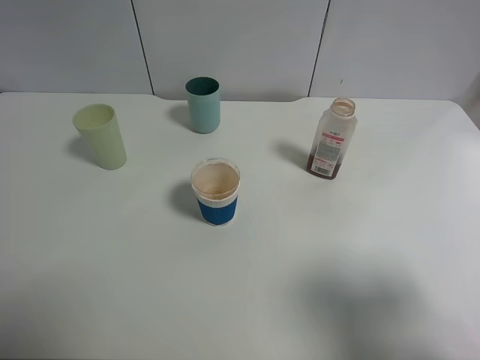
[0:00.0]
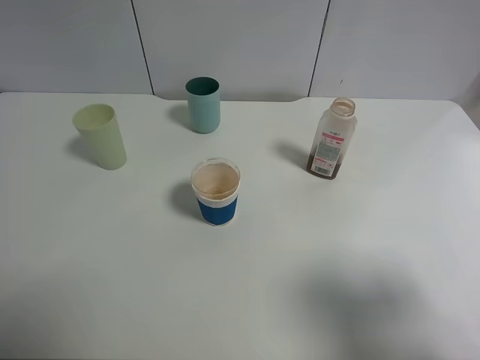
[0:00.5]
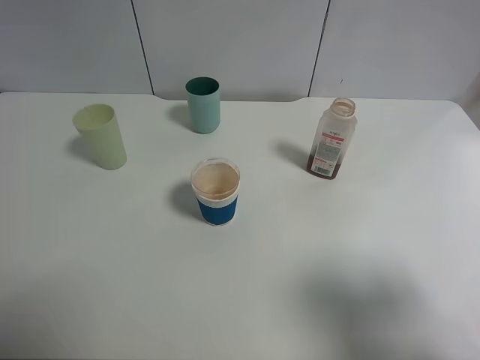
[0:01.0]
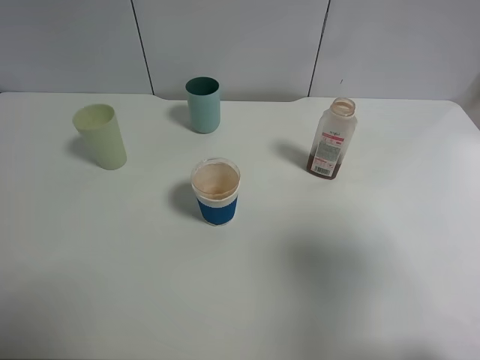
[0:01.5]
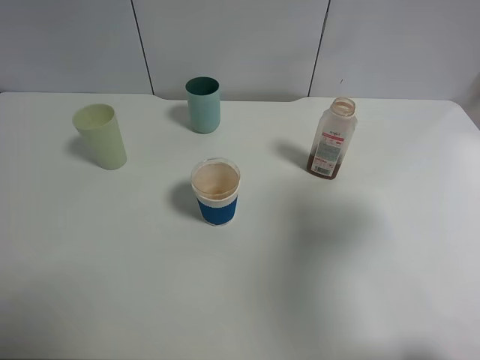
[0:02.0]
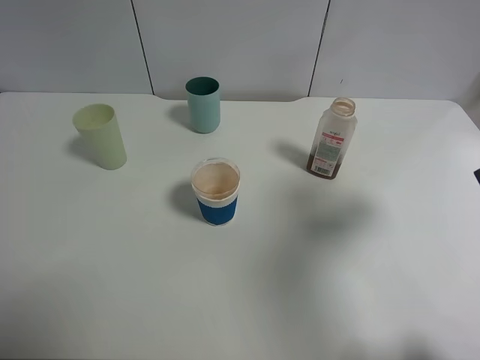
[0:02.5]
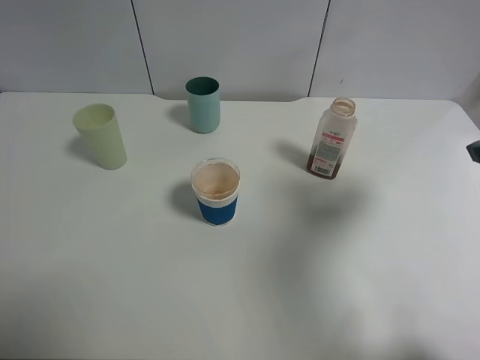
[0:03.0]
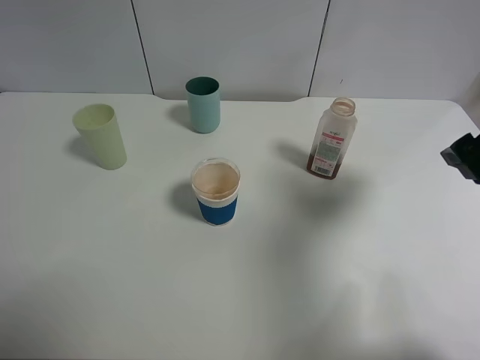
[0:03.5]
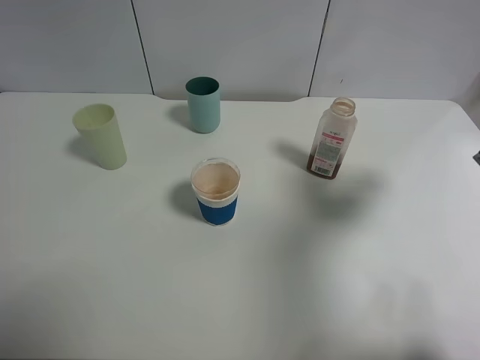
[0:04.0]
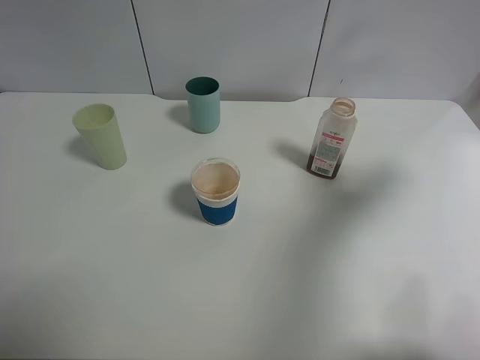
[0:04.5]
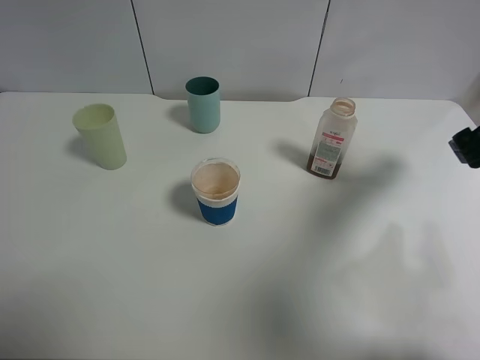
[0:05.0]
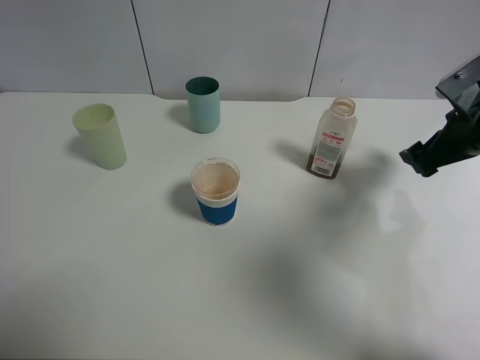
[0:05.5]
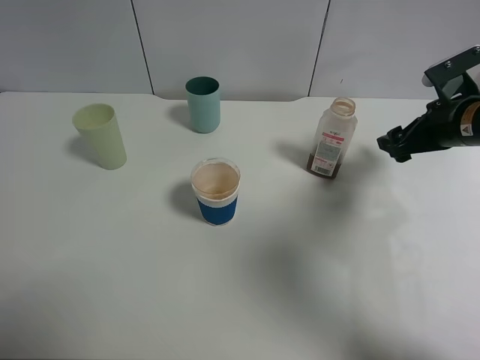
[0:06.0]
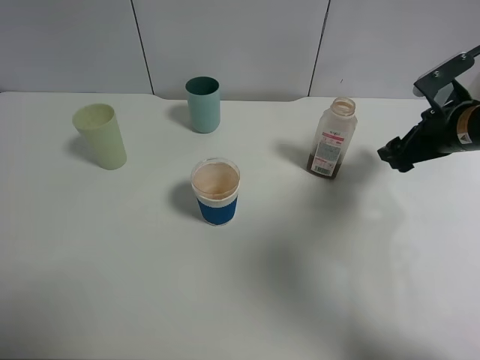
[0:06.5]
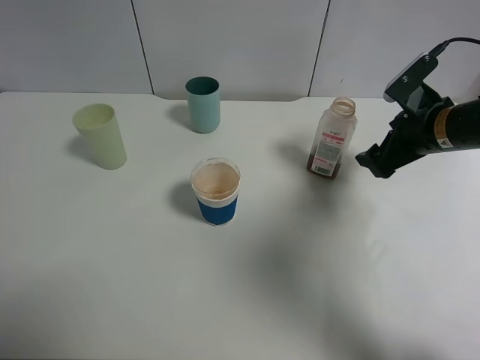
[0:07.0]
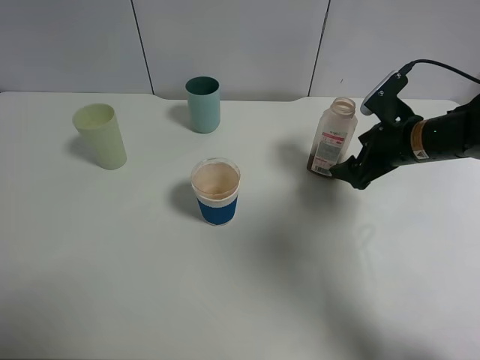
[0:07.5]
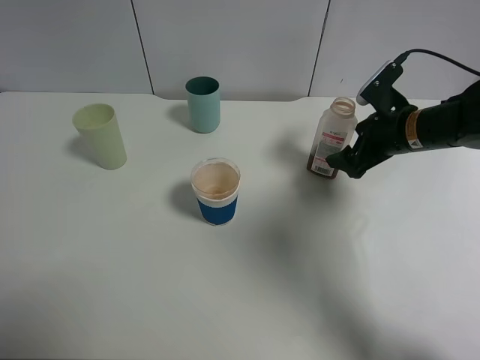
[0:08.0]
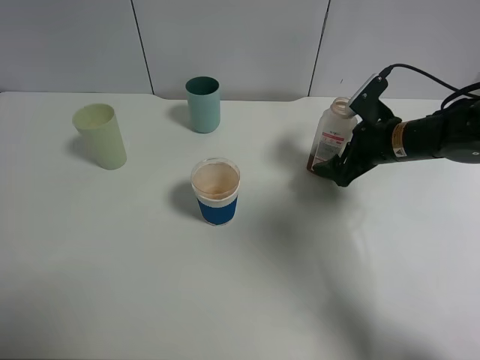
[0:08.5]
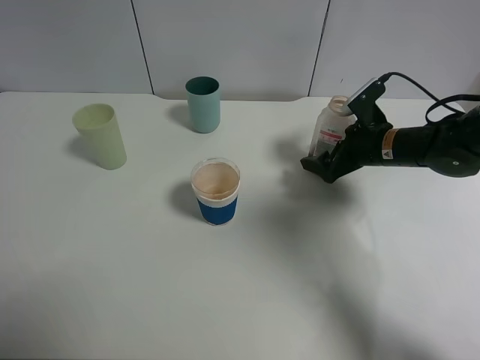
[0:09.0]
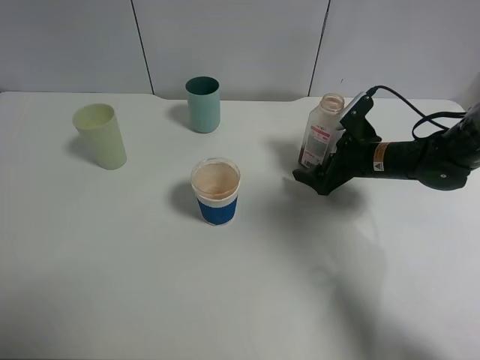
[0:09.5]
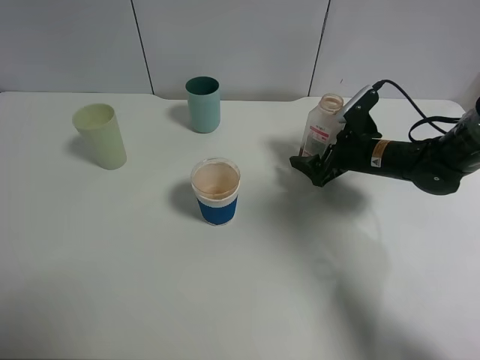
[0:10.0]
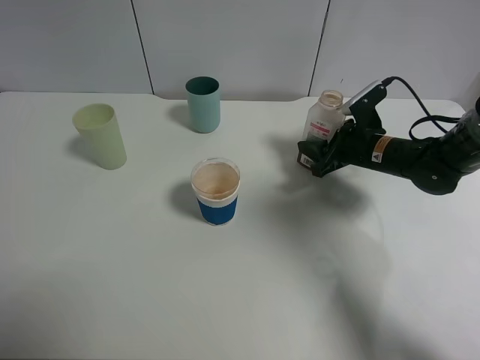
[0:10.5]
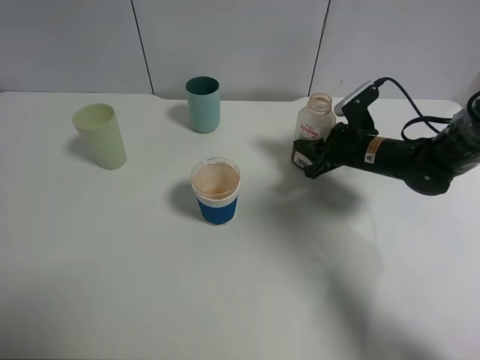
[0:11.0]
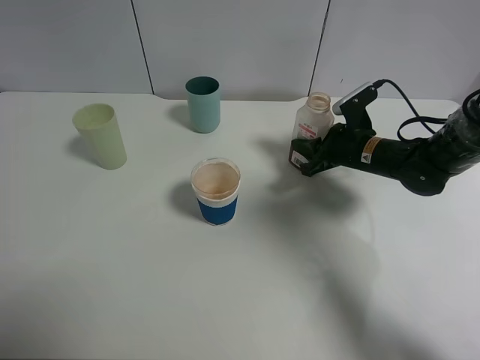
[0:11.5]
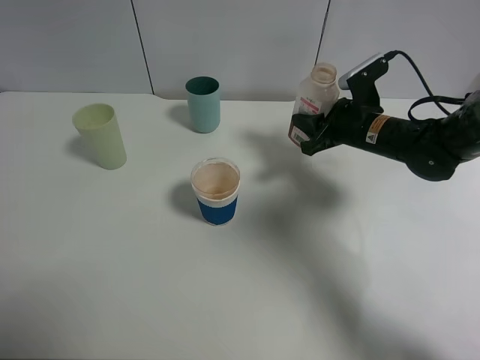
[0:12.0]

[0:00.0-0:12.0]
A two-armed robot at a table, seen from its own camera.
Task of the whole recording: use a clamp to hold the bottle of the drink, pour the beverage into a random cup, then clamp the cup containing the drink and pour the drink into another random cup.
Step, 0:00.0 to 0:10.5: Pick up the drink bottle with right gripper.
0:00.0 to 0:02.0: The right gripper travels forward by some 10 cm.
0:02.0 to 0:04.0: The right gripper heads forward, covering approximately 5 cm.
0:04.0 to 0:06.0: The right gripper heads forward and downward, covering roughly 15 cm.
0:06.0 to 0:08.0: The right gripper goes roughly 5 cm to the left.
0:08.0 to 0:10.0: The right gripper heads downward, covering roughly 5 cm.
0:10.0 to 0:12.0: The right gripper moves approximately 5 cm, and closes.

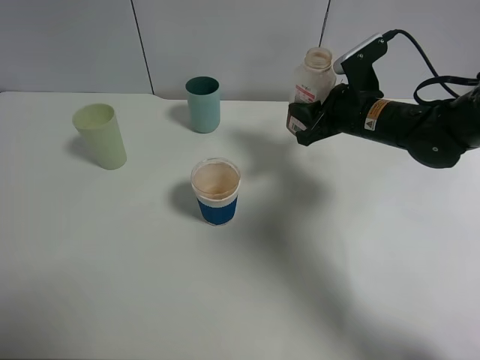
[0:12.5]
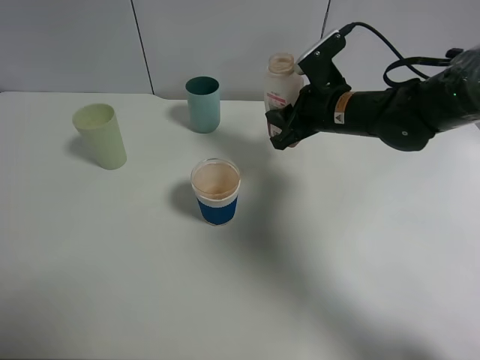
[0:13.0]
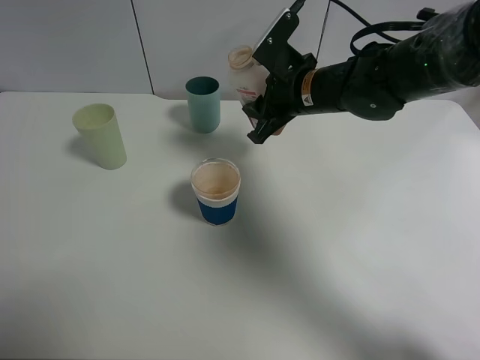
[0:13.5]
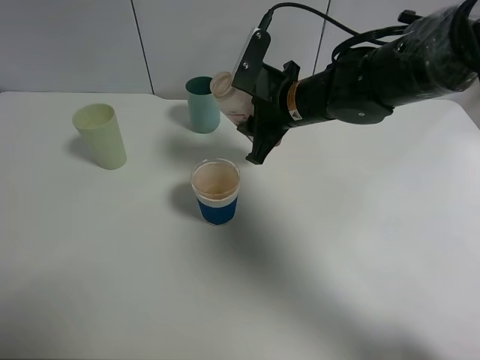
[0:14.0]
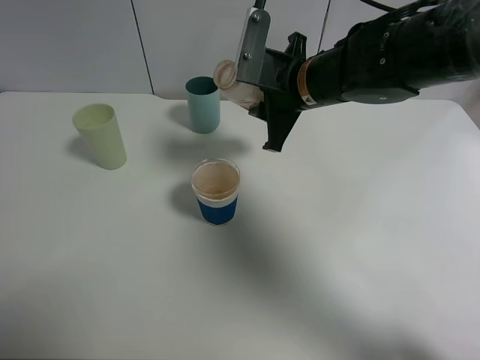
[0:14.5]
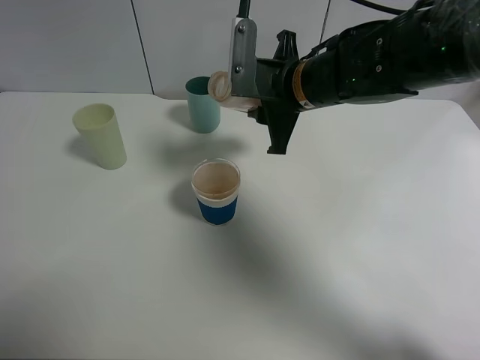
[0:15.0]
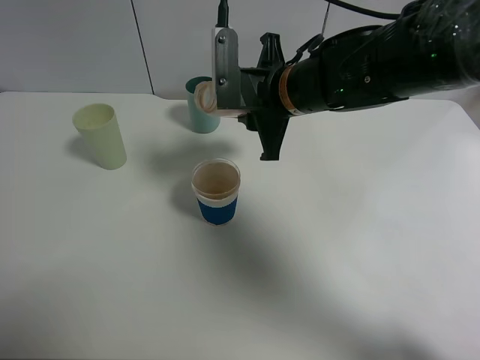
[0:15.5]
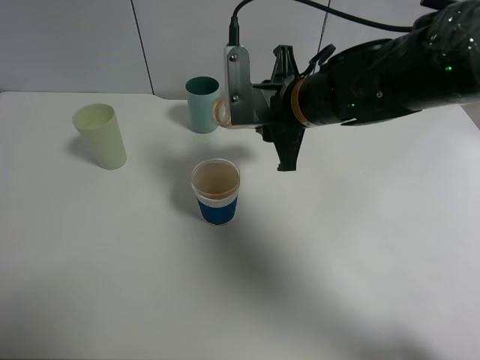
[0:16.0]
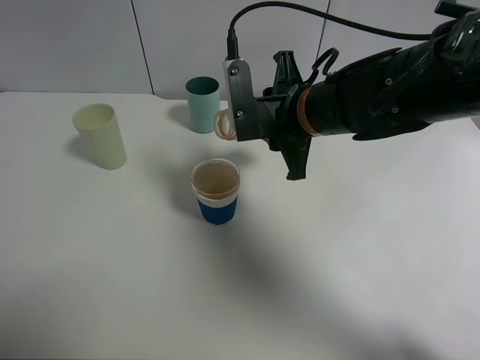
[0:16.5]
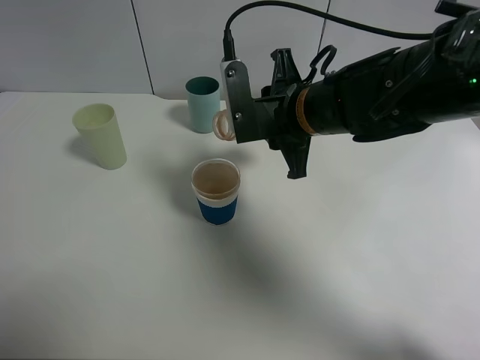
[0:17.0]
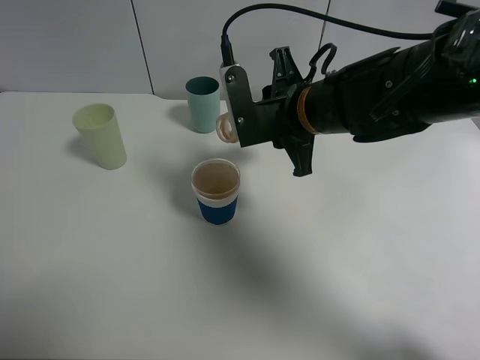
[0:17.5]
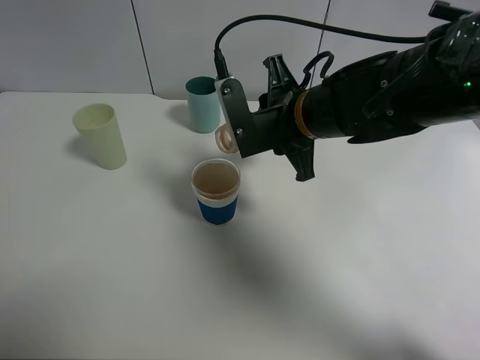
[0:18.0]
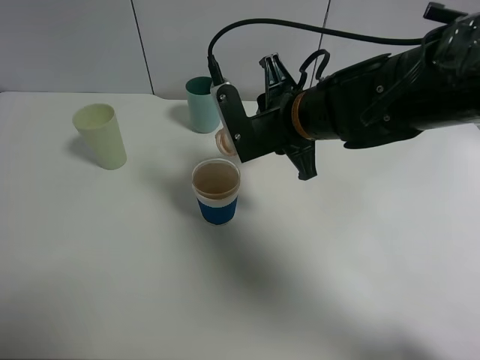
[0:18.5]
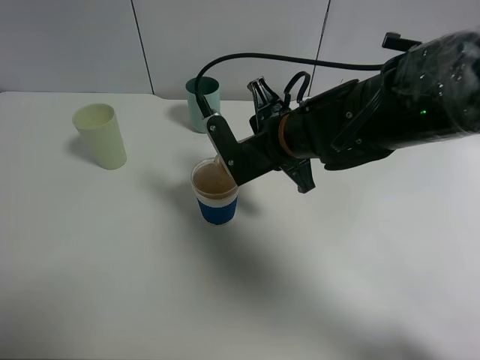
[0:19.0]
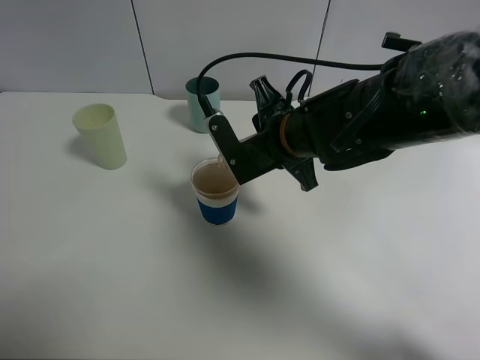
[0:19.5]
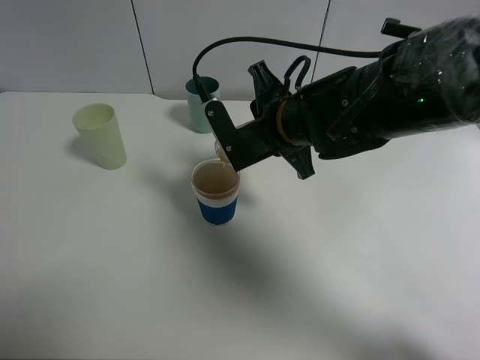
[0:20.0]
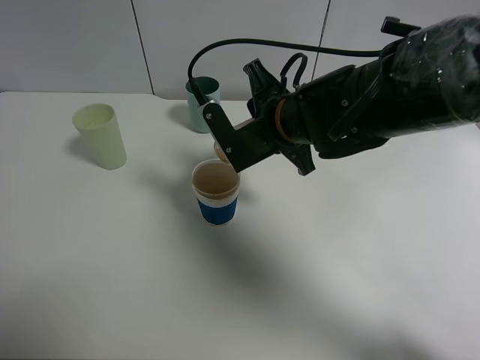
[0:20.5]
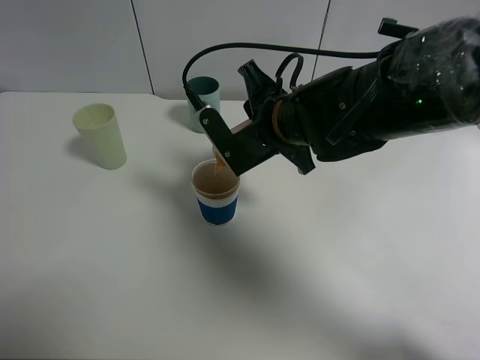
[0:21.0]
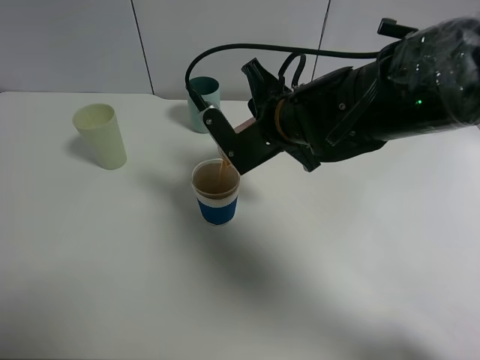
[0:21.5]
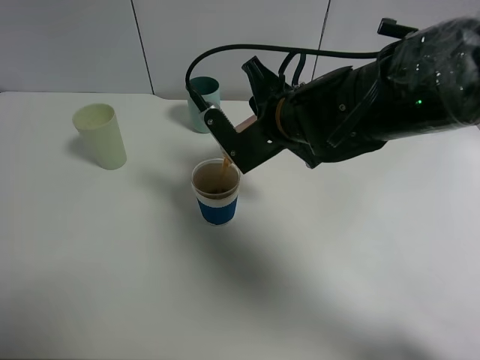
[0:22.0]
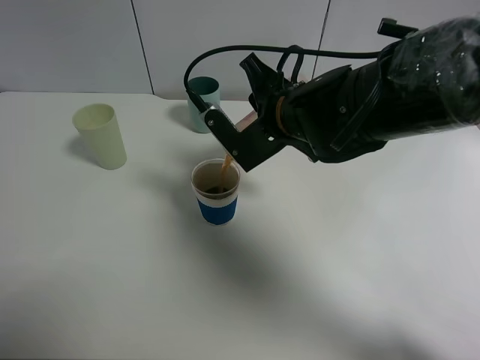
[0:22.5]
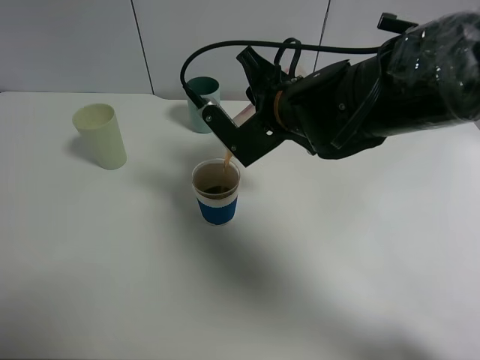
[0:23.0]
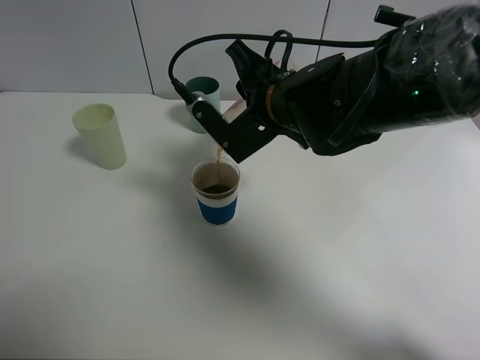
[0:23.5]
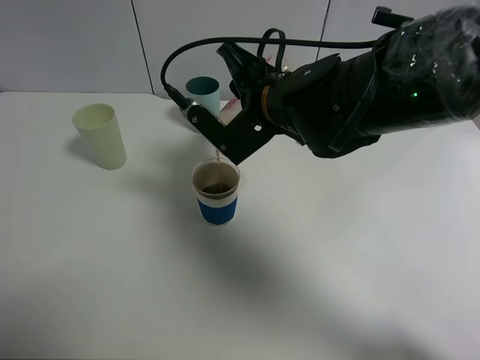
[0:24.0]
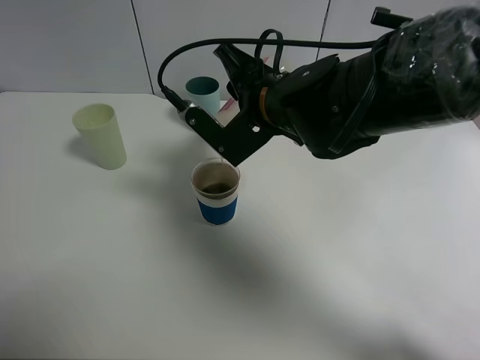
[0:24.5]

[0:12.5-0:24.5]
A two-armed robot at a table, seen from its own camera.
Task of the whole recording: use a clamp to hold the bottle of the drink, pour the beverage into a random cup, then clamp the cup containing the drink and pour the drink into another random cup.
0:12.5 to 0:14.5: The right gripper heads to the left and upward, covering some 10 cm.
0:16.5 to 0:18.5: There are only small adjustments of the grippers.
0:18.5 to 0:20.5: The grippers stay close to where they were, moving slightly.
0:20.5 to 0:24.5: There are only small adjustments of the grippers.

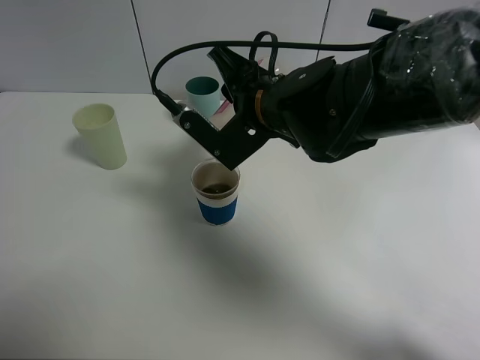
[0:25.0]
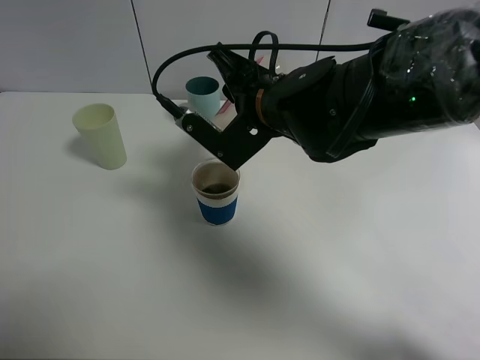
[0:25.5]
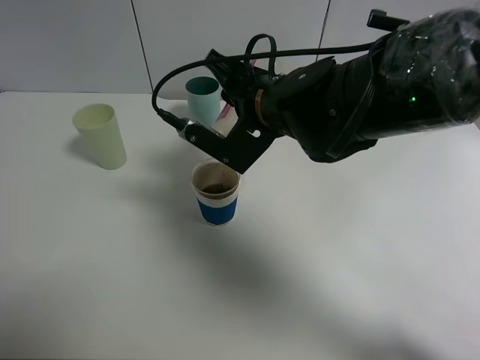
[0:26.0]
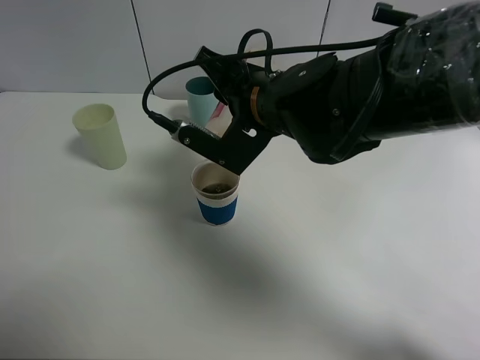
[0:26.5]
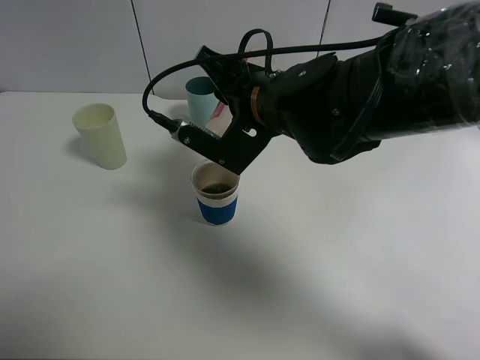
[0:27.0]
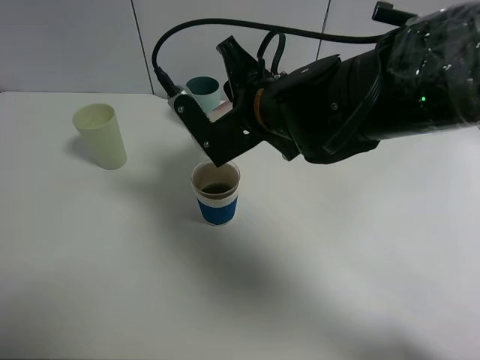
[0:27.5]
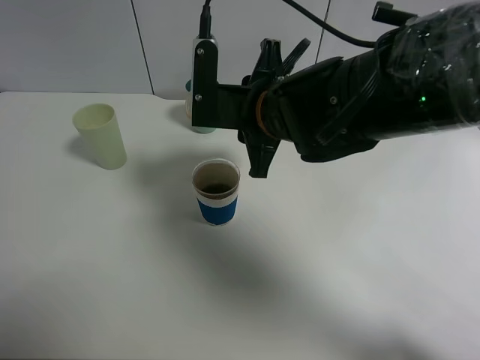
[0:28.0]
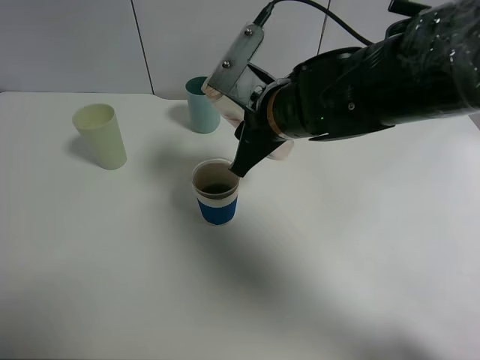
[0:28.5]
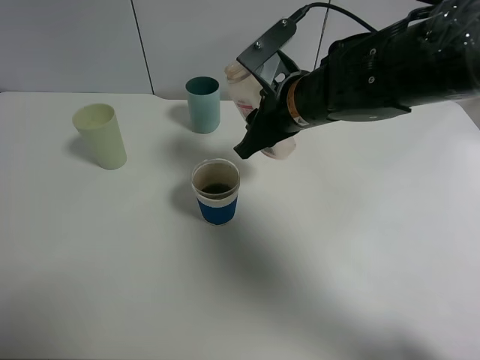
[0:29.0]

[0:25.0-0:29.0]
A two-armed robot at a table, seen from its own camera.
Task of the whole recording: use a clamp to hold the bottle of the drink, pour the beverage into a random cup, then clamp the cup containing the drink and pour the drink into another random cup.
Step, 0:25.0 to 0:27.5: Pour the drink into the paper cup with right gripper.
0:25.0 to 0:27.0: There are only small adjustments of the grippers.
0:27.0 to 0:29.0: The right gripper changes place by roughly 5 cm.
